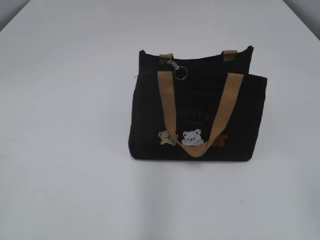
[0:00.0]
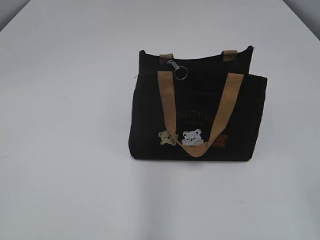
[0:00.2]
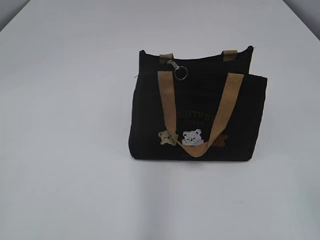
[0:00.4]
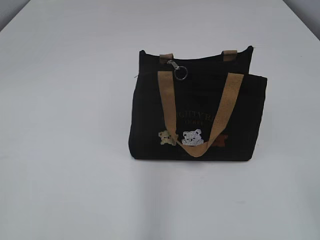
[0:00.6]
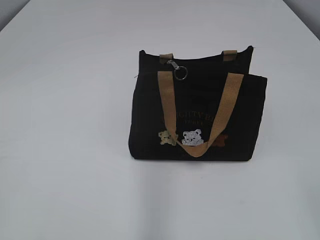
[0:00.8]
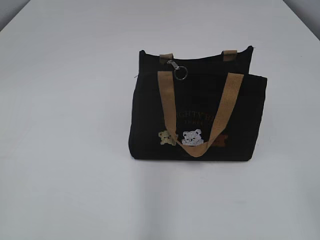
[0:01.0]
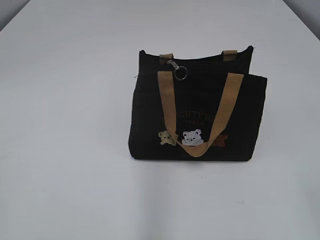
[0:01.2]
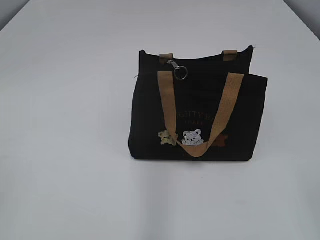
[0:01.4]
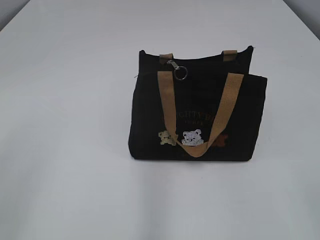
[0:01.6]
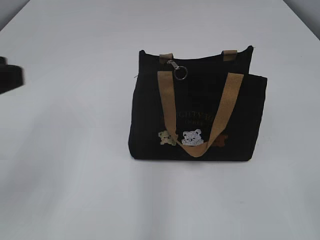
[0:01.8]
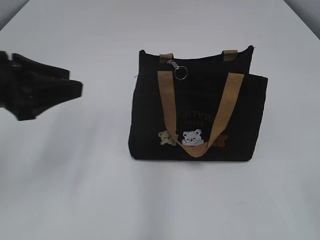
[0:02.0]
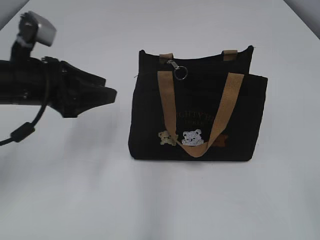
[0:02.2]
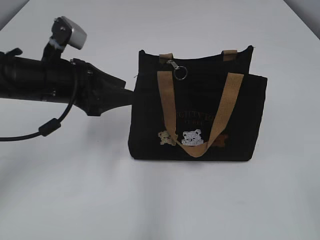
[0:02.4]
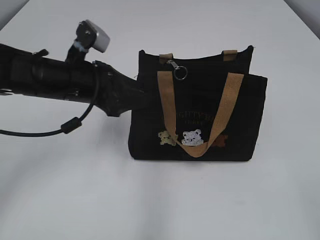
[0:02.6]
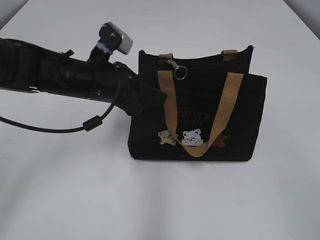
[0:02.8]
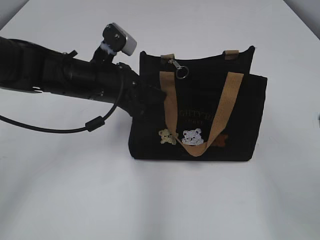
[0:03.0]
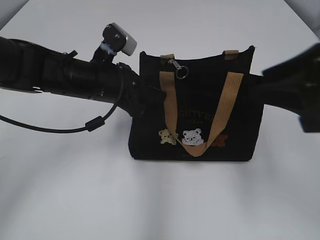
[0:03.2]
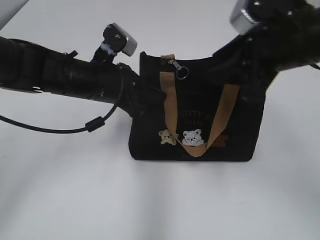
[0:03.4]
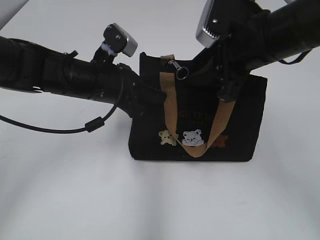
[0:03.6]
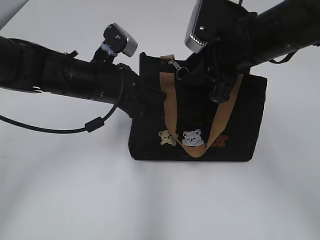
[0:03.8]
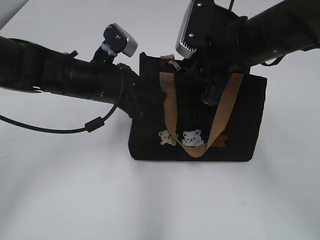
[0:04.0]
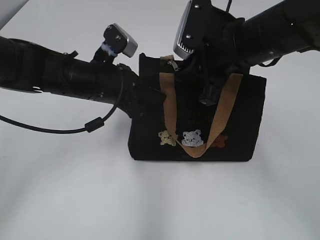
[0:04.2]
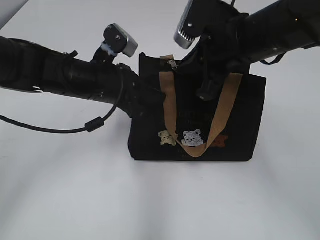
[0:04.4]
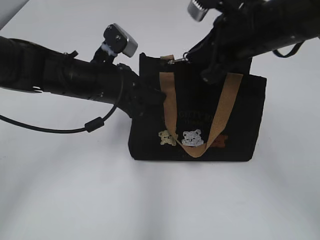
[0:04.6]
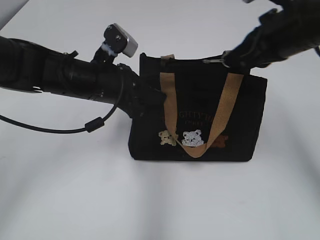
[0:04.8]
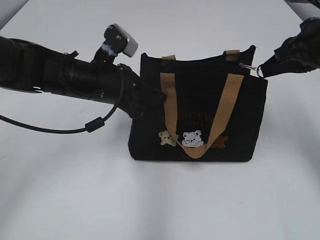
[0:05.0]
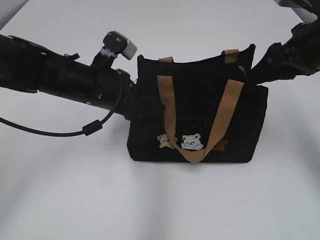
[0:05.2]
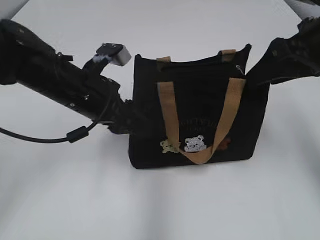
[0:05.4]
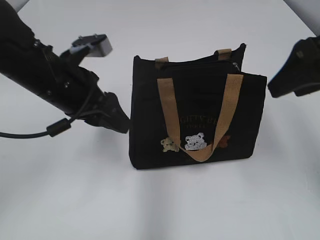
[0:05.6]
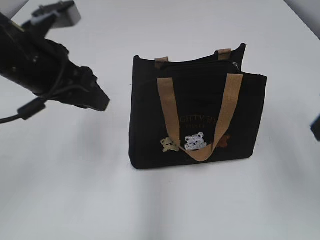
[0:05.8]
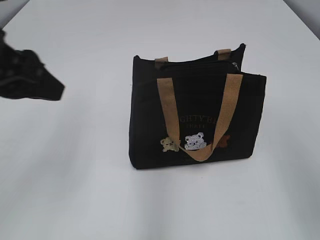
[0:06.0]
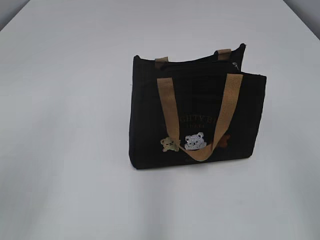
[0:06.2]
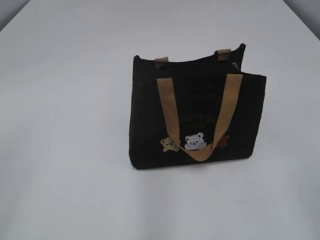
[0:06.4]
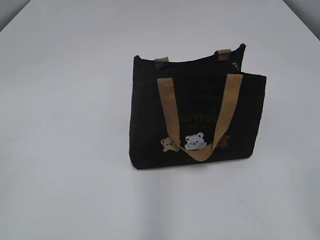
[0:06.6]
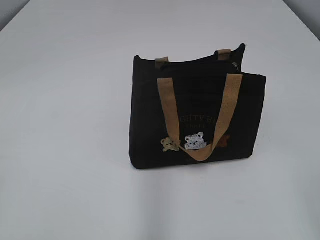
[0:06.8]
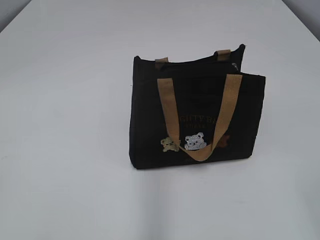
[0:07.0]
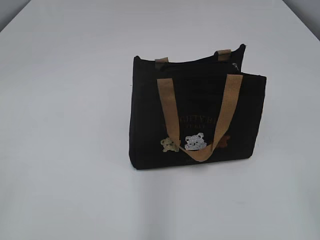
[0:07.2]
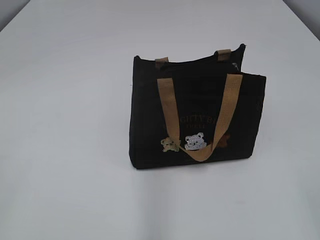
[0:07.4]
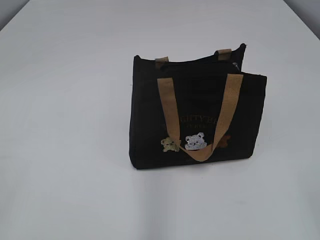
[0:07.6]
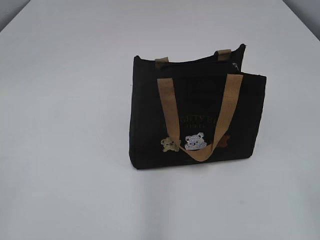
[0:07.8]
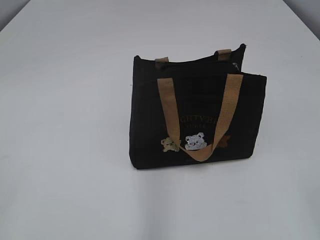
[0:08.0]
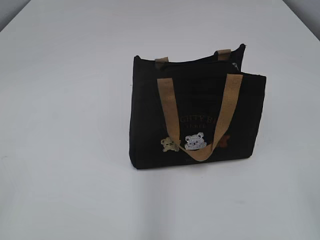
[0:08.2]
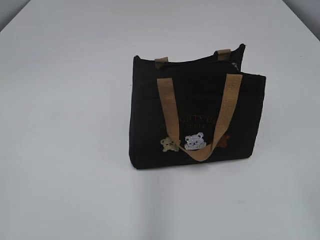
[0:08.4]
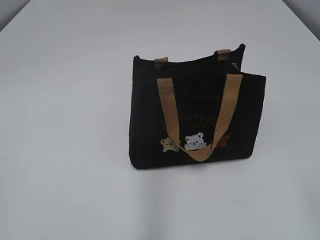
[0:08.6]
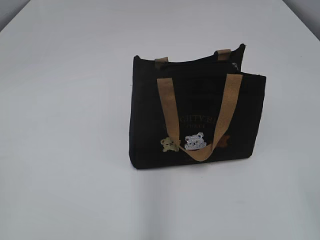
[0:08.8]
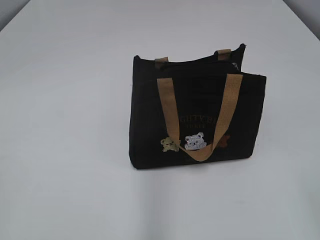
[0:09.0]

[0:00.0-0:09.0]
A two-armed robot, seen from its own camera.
Step, 0:00.0 to 0:05.0: Pull open the zipper with your right hand.
Step, 0:05.2 to 0:05.4: Hold the bag with your left hand.
0:01.6 to 0:03.0: The left gripper is displaced forward, to the right and downward by roughly 35 cm, and closes up, while the right gripper goes some 10 cm forward.
0:03.0 to 0:04.4: The right gripper shifts about 25 cm forward and to the left, and closes.
0:04.4 to 0:06.0: The left gripper is displaced upward, backward and to the left by roughly 20 cm, and opens up, while the right gripper heads backward and to the right, covering about 20 cm, and opens up.
0:06.0 to 0:07.6: The left gripper travels backward and to the left by some 25 cm.

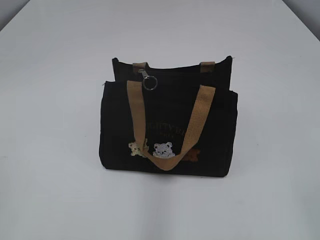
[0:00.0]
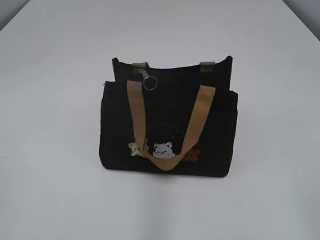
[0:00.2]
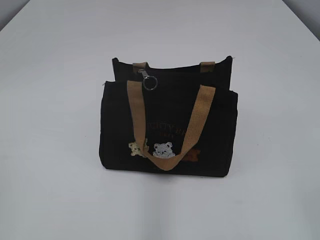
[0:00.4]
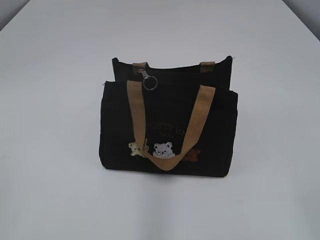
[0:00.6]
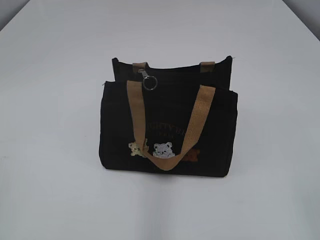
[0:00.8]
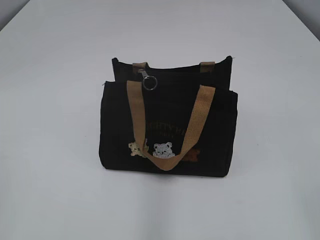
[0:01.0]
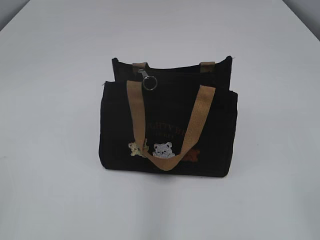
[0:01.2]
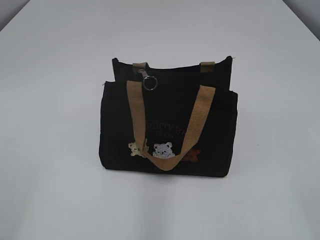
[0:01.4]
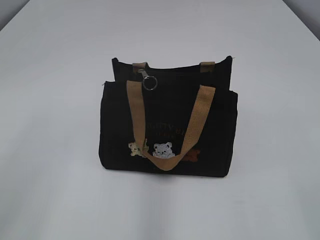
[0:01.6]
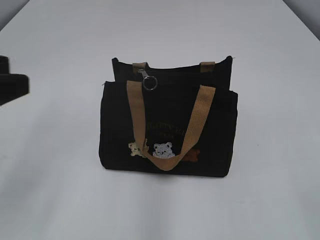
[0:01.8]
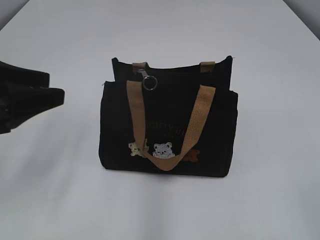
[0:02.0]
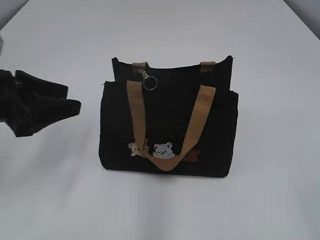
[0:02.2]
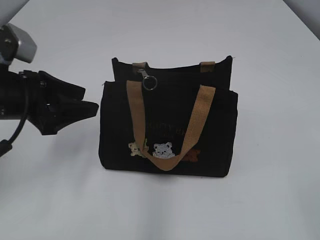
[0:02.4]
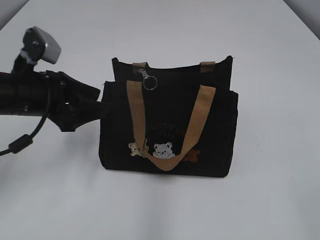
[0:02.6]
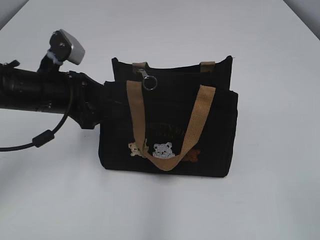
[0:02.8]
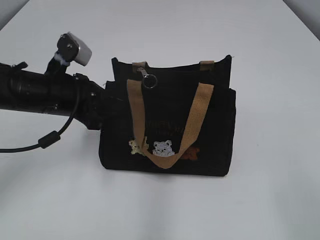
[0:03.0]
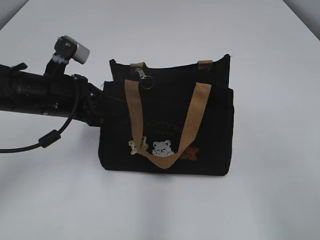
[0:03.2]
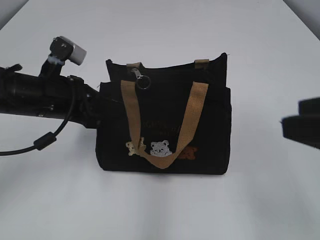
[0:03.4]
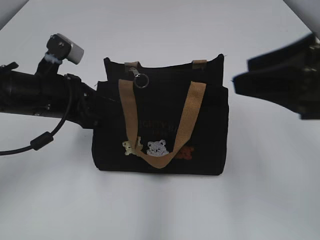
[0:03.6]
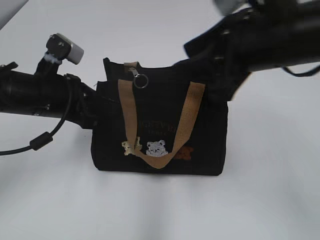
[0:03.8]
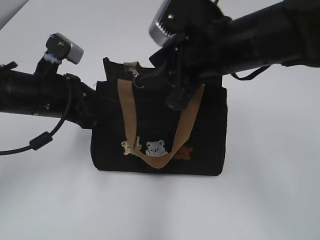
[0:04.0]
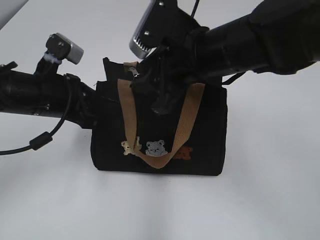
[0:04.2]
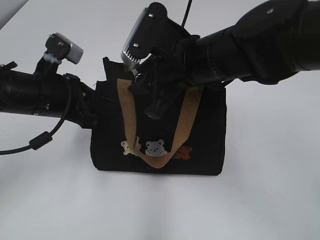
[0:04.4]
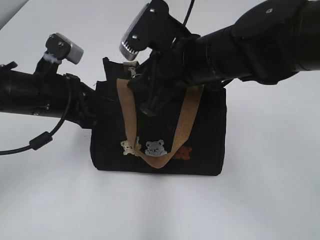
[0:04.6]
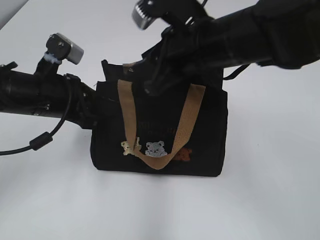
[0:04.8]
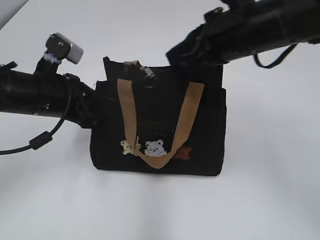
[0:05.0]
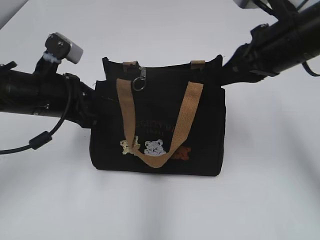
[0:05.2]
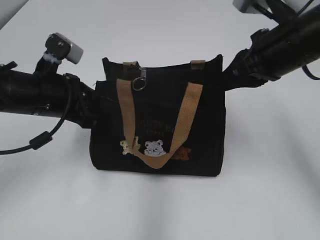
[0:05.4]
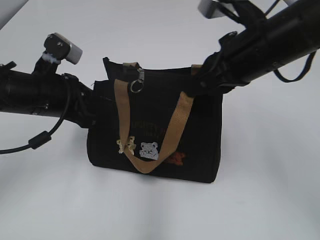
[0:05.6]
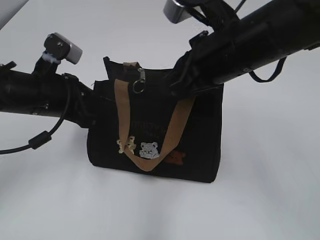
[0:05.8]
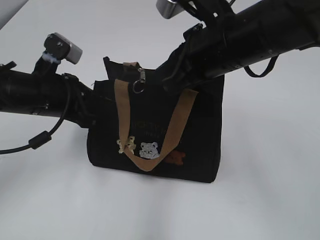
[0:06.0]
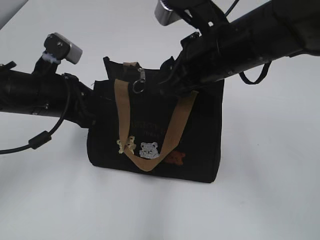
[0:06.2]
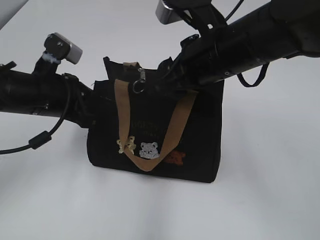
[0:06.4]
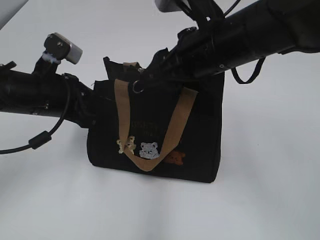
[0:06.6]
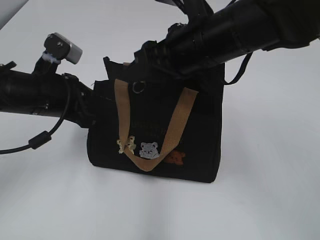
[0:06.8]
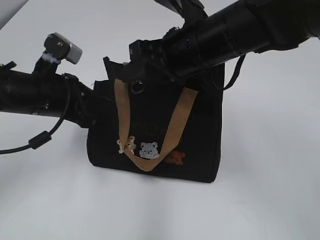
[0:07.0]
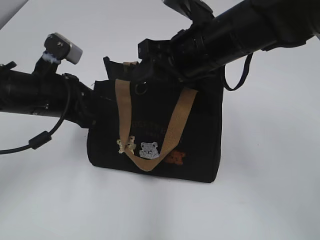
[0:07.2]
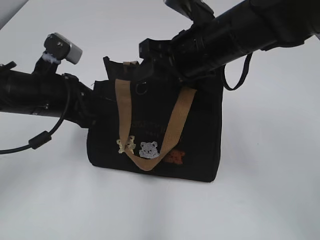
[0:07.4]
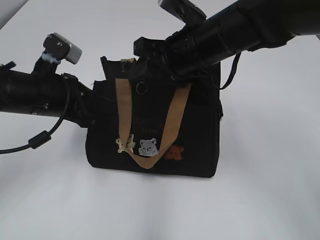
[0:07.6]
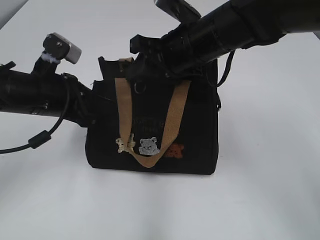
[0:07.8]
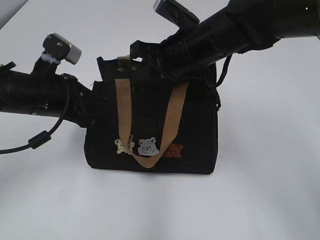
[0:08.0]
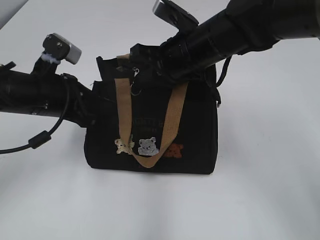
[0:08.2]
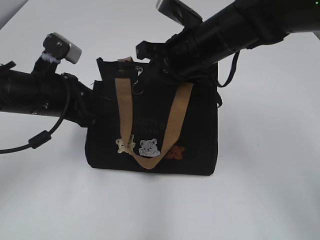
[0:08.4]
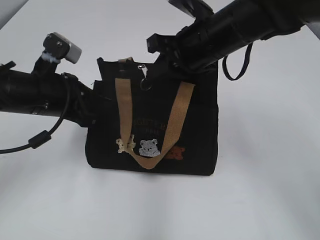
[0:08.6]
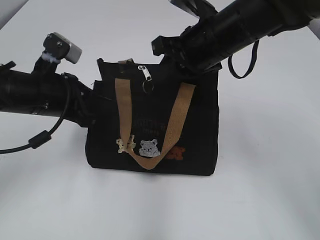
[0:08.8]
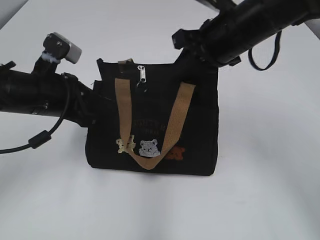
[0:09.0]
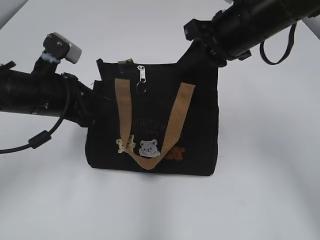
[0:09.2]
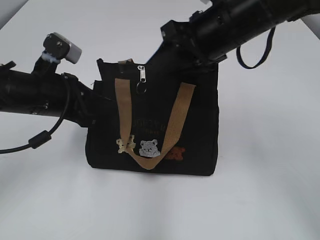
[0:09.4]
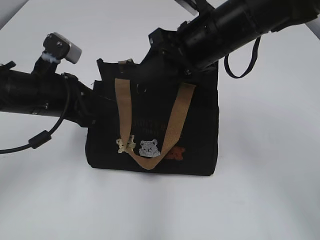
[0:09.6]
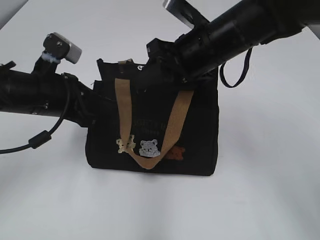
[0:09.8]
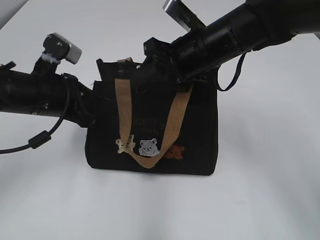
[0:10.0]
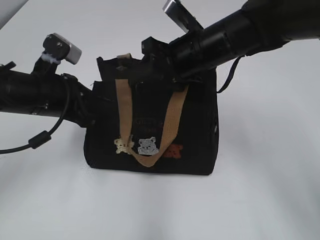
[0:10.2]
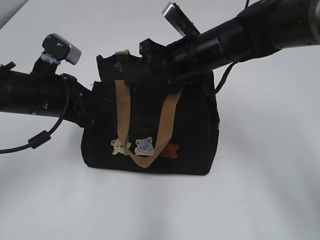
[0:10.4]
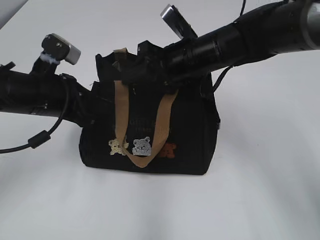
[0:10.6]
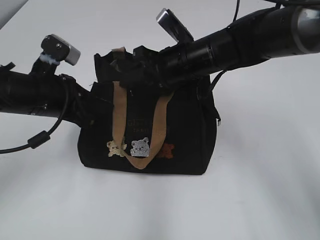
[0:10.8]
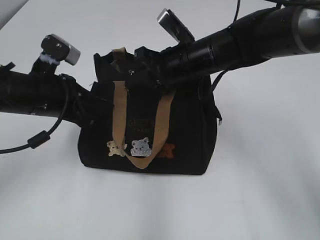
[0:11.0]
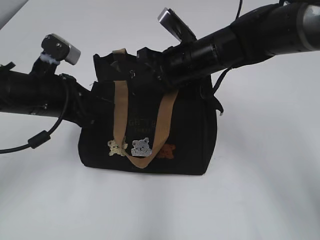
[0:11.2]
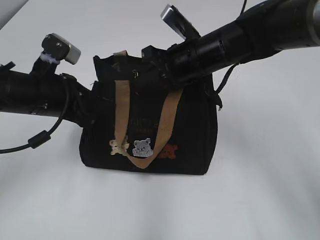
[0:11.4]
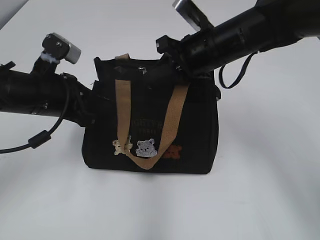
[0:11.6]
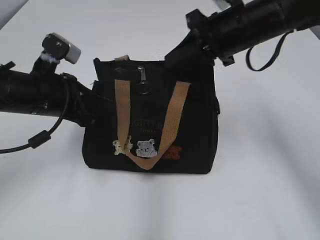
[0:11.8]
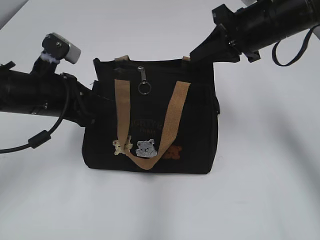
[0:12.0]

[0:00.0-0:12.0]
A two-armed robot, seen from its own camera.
0:01.6 to 0:03.0: The left gripper is displaced forward, downward and to the right by some 30 cm, and closes up.
0:03.0 to 0:04.4: The right gripper moves forward and to the left, approximately 35 cm.
0:04.4 to 0:06.0: The right gripper goes to the right and returns, approximately 10 cm each way, and closes.
0:06.0 to 0:07.6: The right gripper shifts roughly 5 cm forward, and opens.
0:07.6 to 0:09.0: The right gripper moves some 5 cm, and closes its fingers.
0:09.0 to 0:10.4: The right gripper is displaced downward by about 5 cm, and opens up.
0:10.4 to 0:12.0: The right gripper goes roughly 10 cm to the right and upward, and closes its fingers.

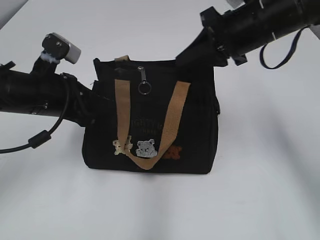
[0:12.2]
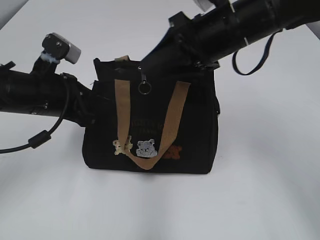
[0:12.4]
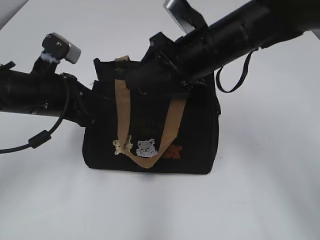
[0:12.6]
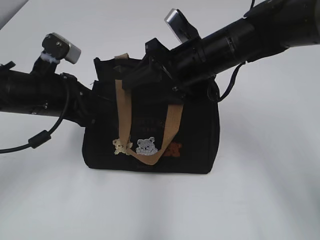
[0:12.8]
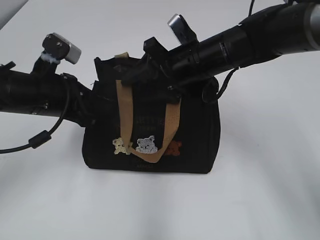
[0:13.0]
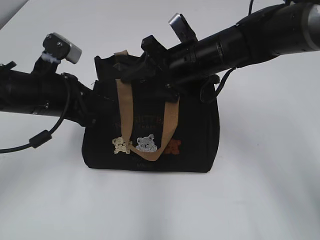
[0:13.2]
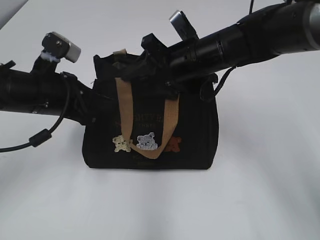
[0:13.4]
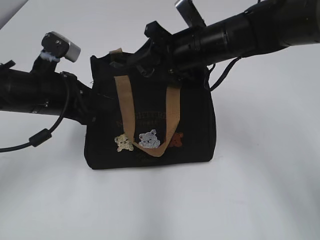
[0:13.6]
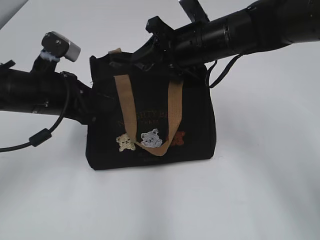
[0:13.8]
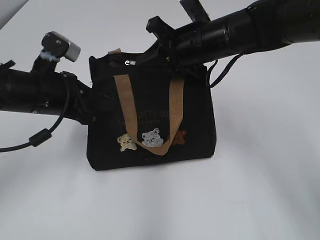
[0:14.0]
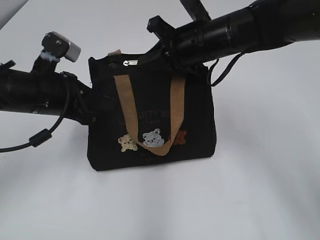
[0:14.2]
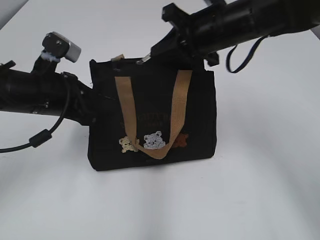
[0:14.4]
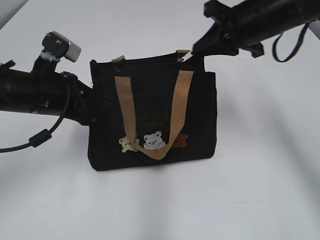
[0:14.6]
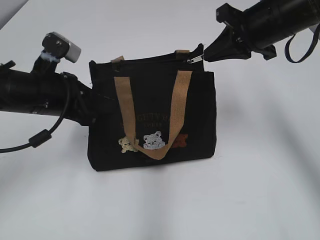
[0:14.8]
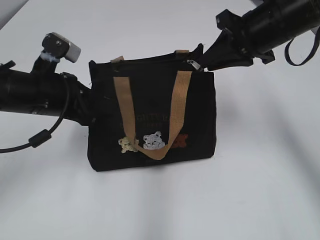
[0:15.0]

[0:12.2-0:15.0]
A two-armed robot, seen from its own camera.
0:12.2 to 0:13.6: The right gripper moves to the left and downward, roughly 10 cm, and opens up.
0:13.6 to 0:15.0: The right gripper shifts approximately 10 cm to the right and upward, and closes up.
